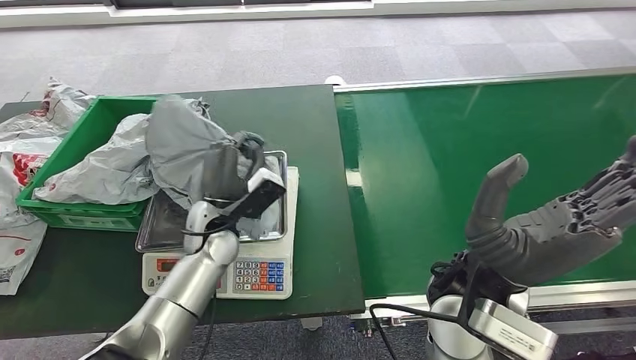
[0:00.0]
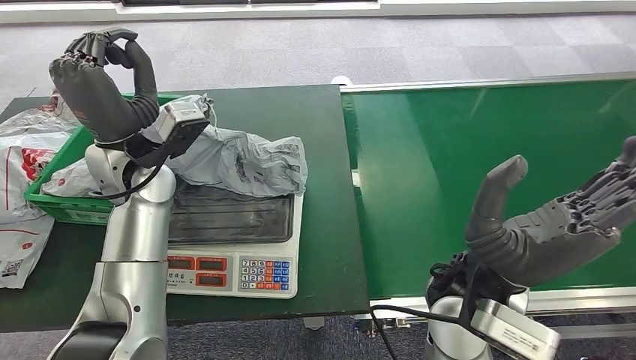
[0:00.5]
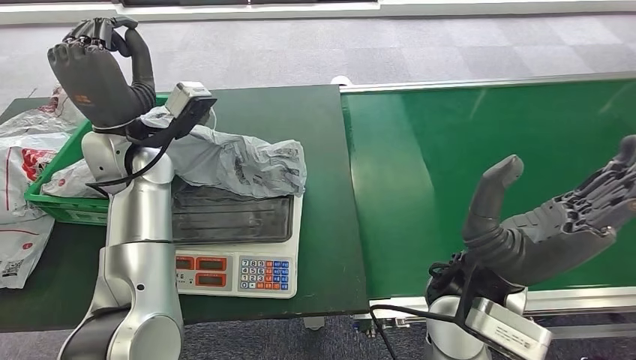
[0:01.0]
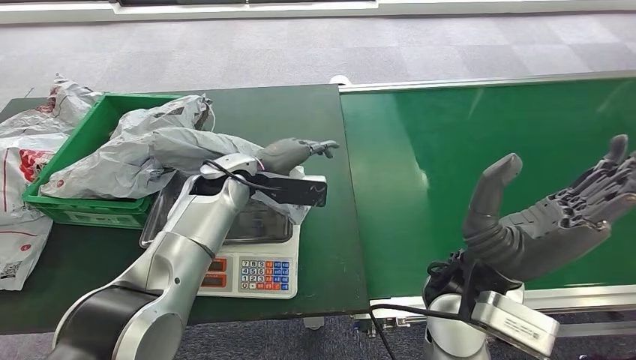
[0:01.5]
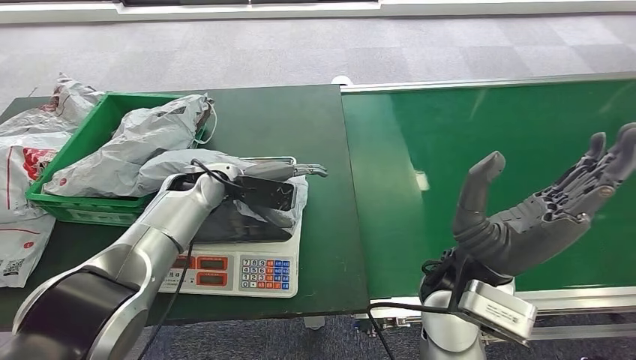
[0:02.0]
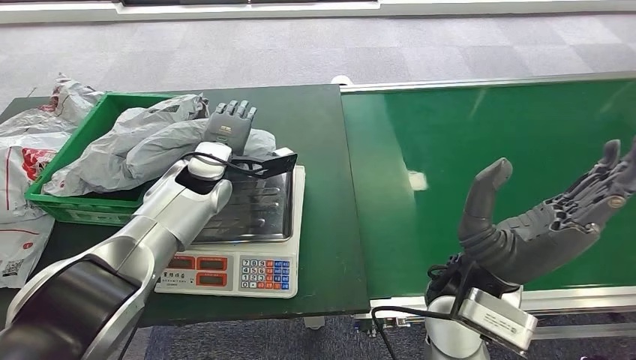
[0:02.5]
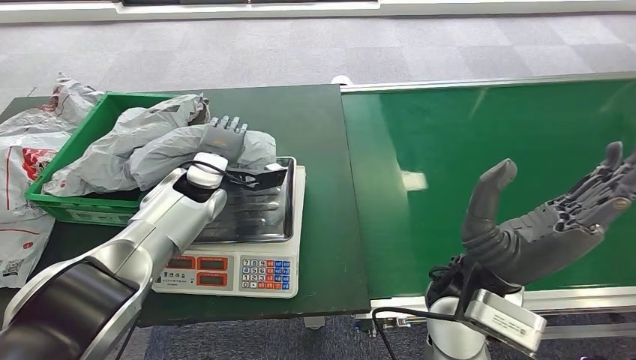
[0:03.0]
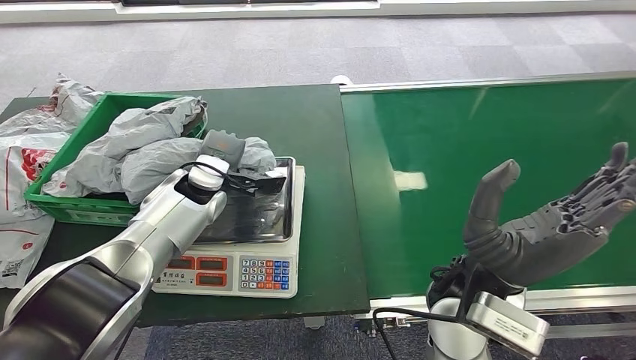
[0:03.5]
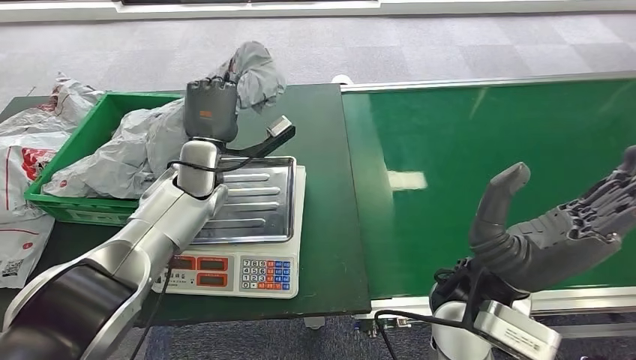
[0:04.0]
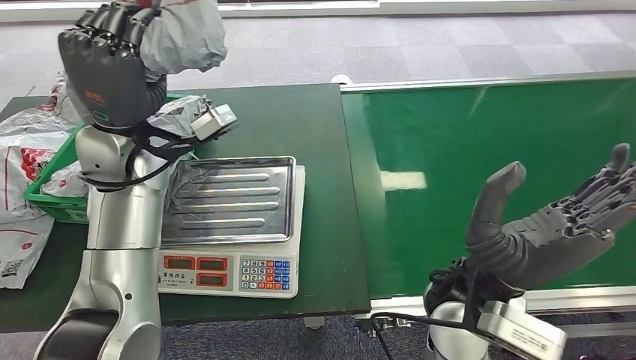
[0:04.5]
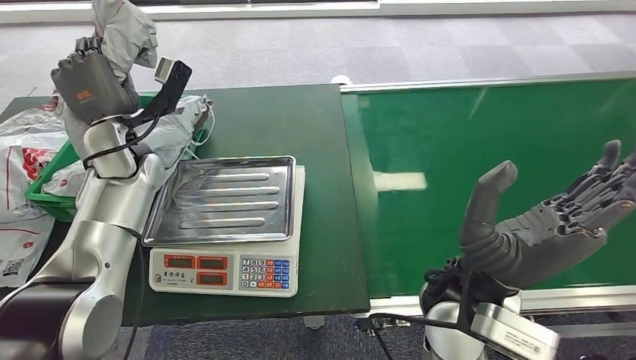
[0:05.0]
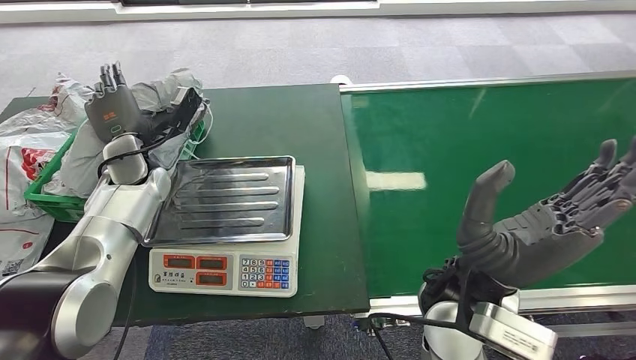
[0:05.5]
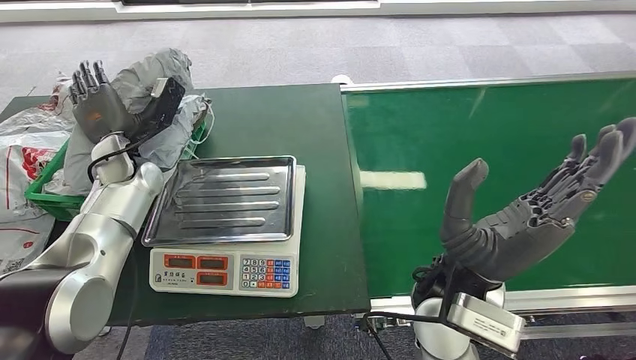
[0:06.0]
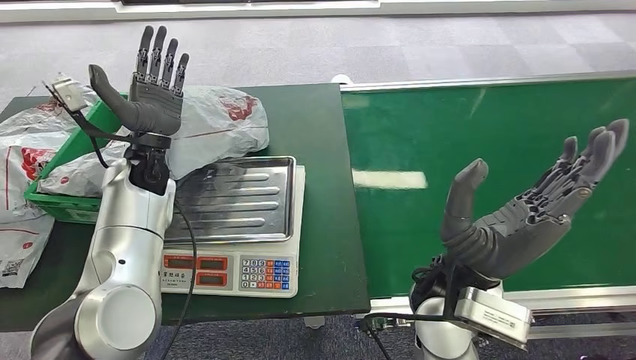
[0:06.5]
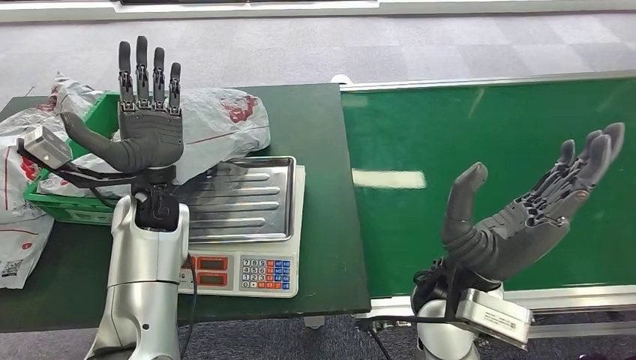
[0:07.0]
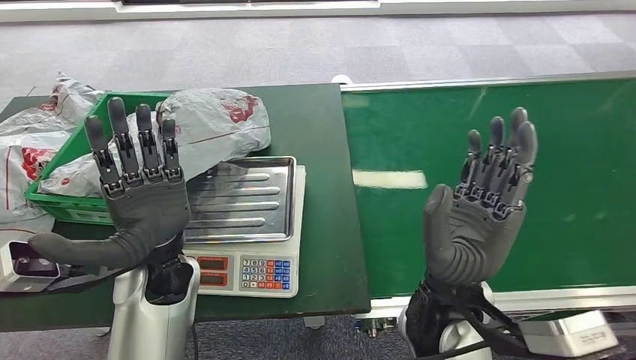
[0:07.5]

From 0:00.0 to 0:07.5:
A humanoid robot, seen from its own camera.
Step, from 0:01.5 to 0:05.0: Pick up the package from the inbound machine.
Step, from 0:05.5 to 0:07.5: Place the package into the parcel locker.
